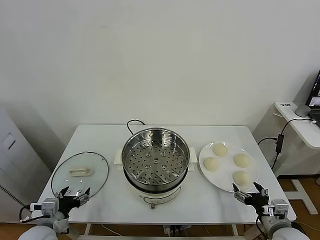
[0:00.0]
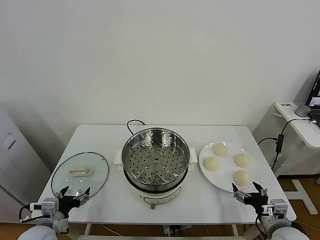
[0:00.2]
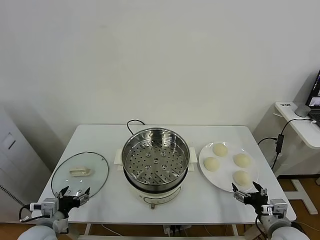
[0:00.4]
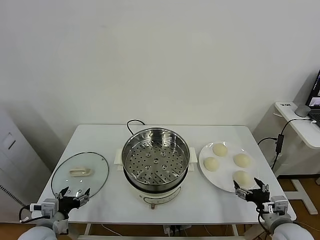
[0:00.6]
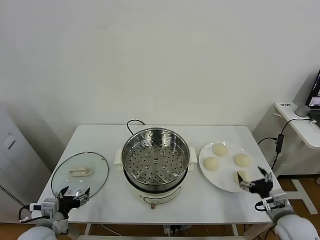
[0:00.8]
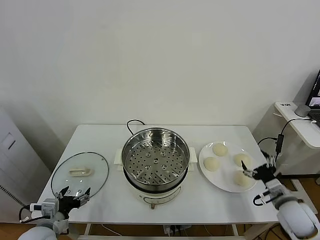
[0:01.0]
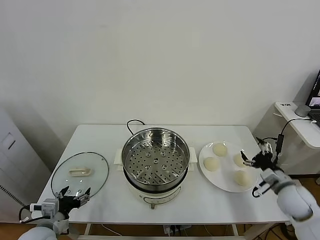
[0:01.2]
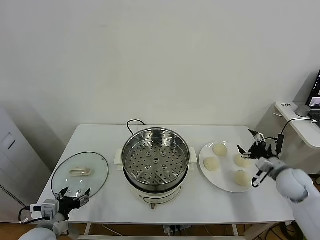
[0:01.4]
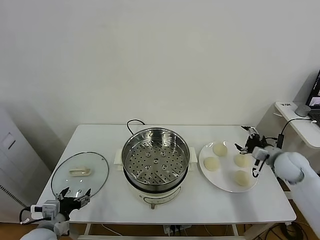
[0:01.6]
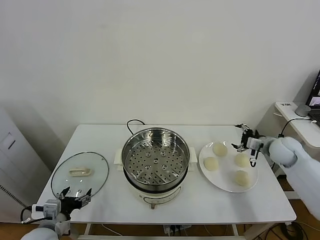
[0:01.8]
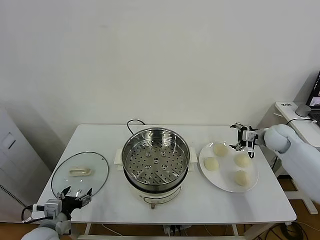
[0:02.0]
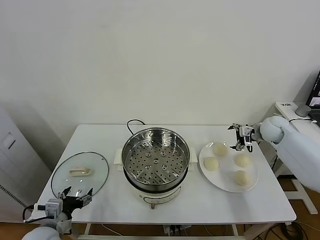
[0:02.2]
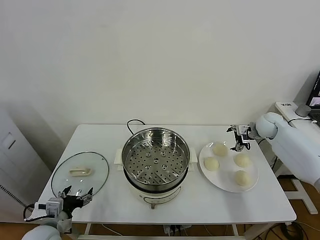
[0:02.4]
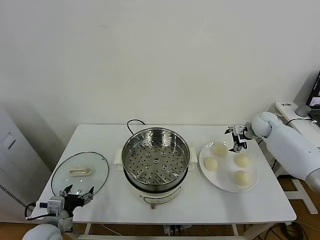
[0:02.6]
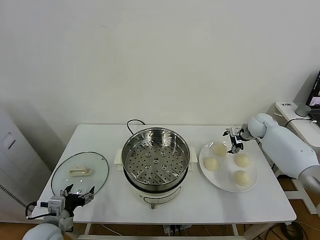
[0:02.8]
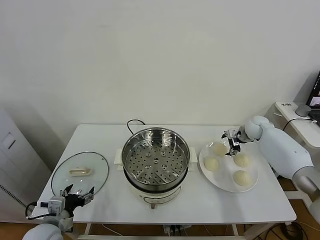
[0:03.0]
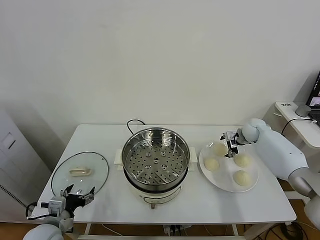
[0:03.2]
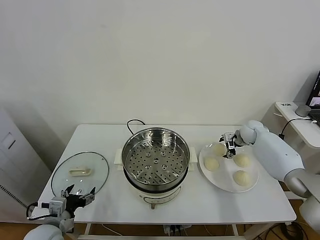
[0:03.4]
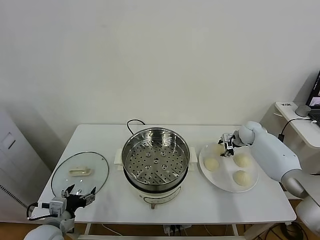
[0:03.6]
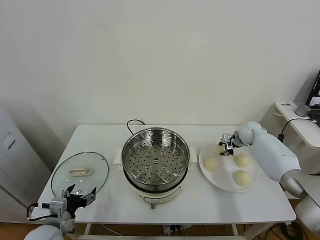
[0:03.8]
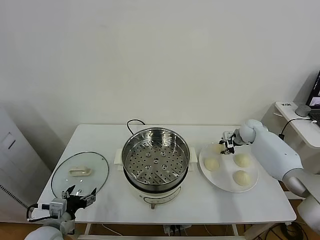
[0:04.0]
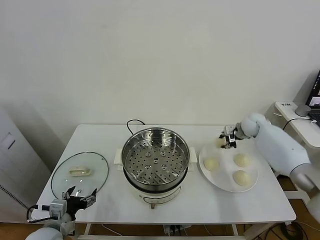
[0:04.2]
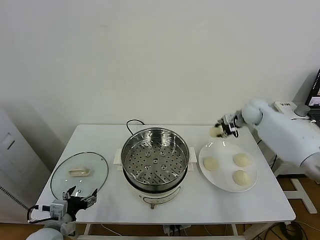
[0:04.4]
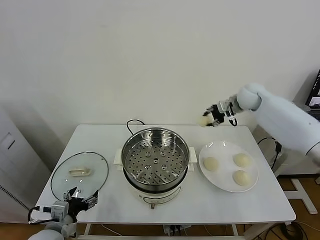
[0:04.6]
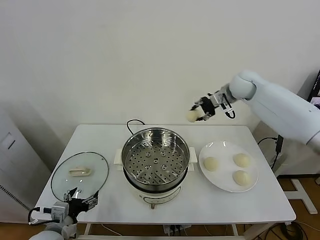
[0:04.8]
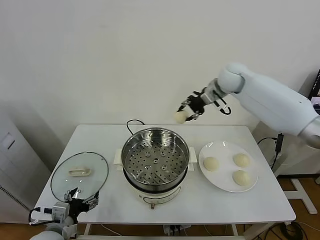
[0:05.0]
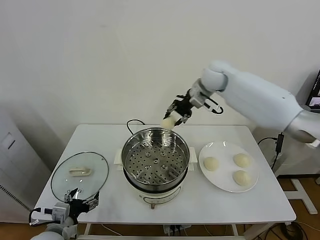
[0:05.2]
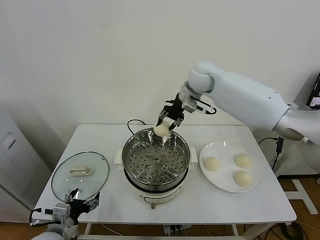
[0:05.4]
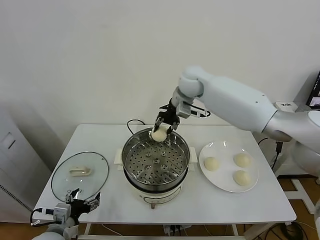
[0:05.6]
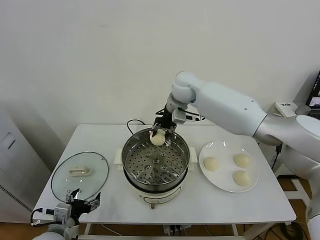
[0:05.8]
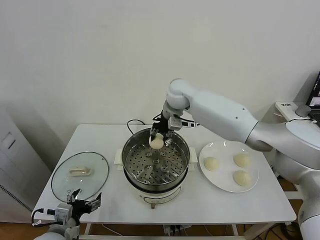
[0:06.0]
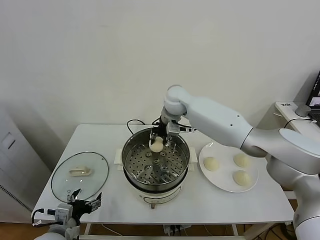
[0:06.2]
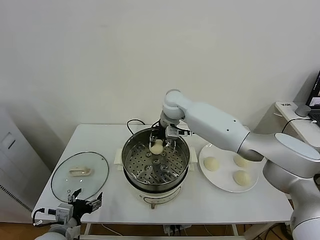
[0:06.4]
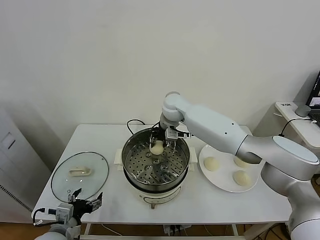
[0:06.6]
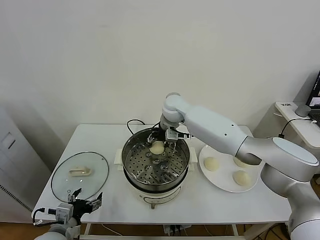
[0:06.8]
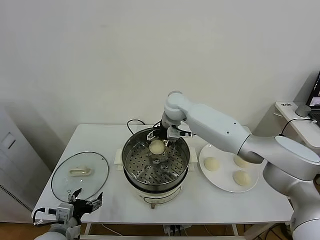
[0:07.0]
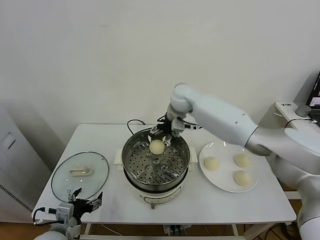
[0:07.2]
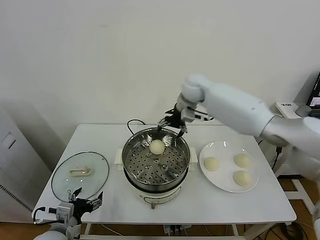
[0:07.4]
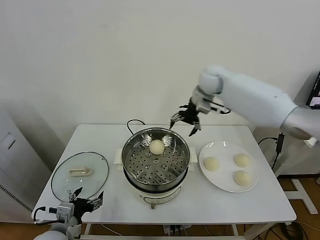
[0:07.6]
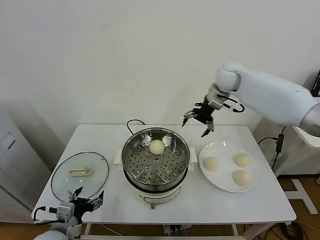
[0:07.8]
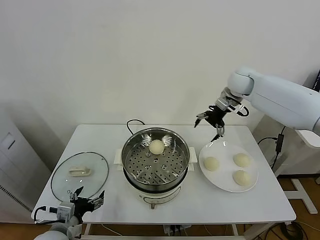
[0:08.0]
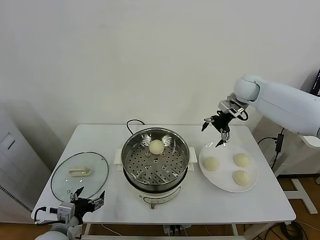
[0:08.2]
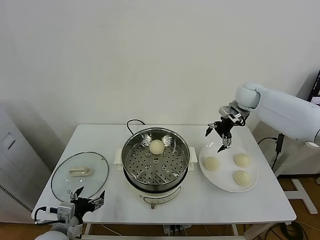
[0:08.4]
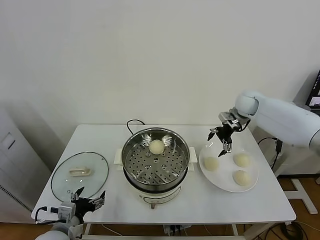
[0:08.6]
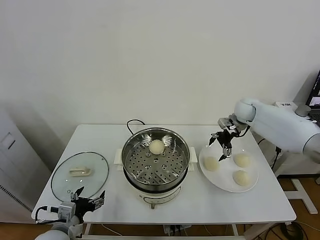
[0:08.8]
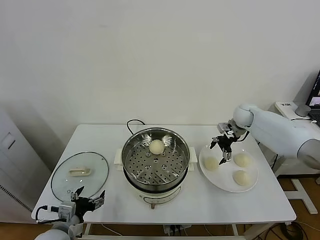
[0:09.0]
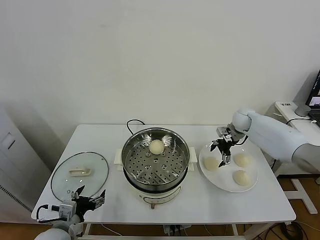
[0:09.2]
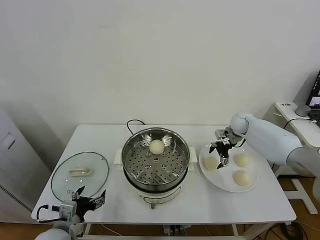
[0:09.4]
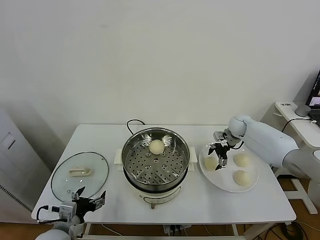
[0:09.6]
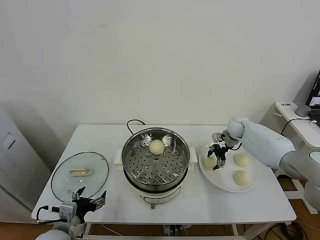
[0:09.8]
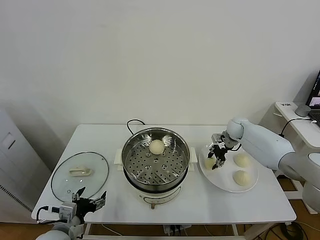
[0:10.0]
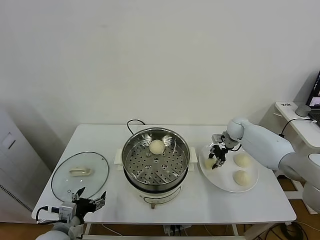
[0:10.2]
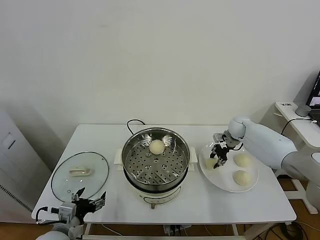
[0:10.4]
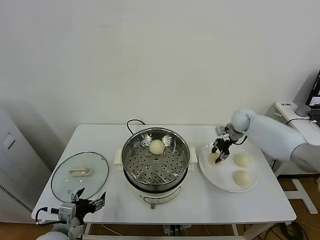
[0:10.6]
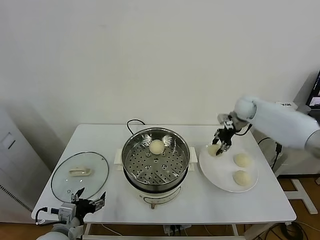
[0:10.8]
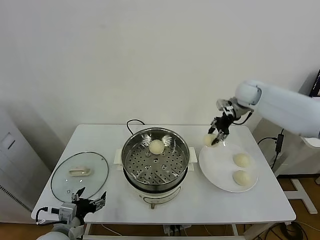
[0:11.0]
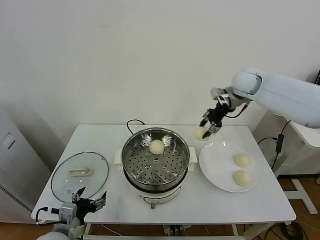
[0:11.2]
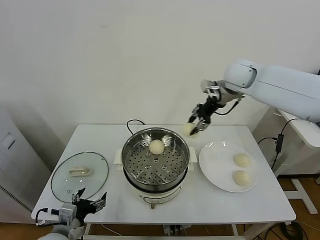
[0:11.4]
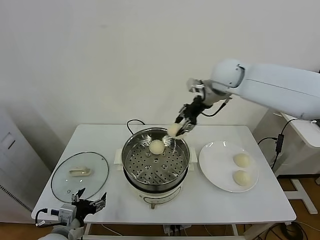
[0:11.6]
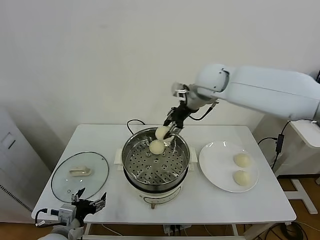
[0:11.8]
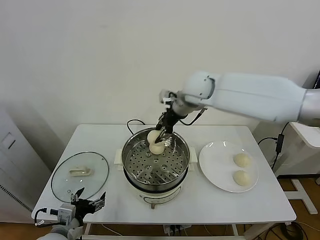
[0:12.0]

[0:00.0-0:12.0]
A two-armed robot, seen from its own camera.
Task of the whole recording: take steamed baozi put them in steamer.
Step, 0.0 to 3.6 s: Grasp the baozi in the plate with right gripper.
Step, 3.8 to 7.0 s: Place the baozi on the steamer with right gripper.
Step, 7.4 to 10.0 s: Grasp the baozi in the plate with right gripper.
1.6 to 3.0 s: The right gripper goes about 15 cm forward.
3.0 to 4.4 s: The right gripper is displaced upward and to the left by roughly 15 cm, and closes up.
4.4 to 6.0 s: The right gripper goes roughly 30 cm to the left.
6.0 to 7.6 s: The right gripper is displaced to the right and upward by some 15 cm, and opens its fingers.
7.6 to 9.0 s: The right gripper travels downward and to the right by some 25 cm.
9.0 to 10.4 s: The right gripper closes.
10.4 to 12.0 s: The right gripper is displaced to the left and upward by about 35 cm.

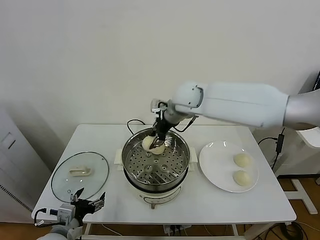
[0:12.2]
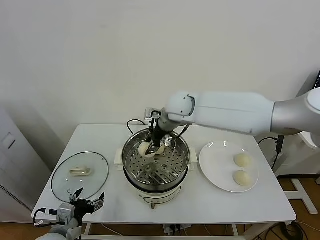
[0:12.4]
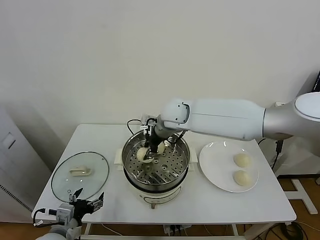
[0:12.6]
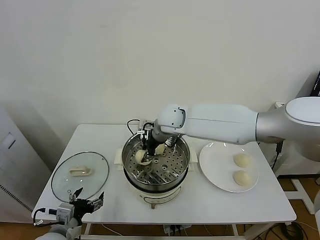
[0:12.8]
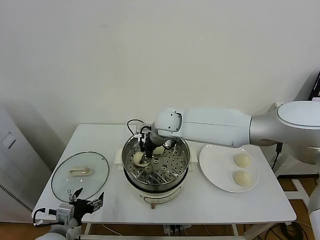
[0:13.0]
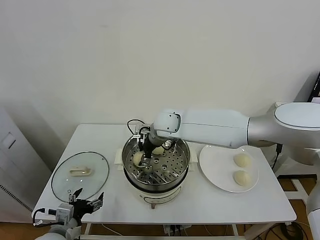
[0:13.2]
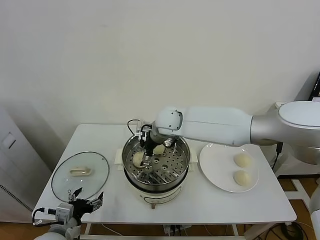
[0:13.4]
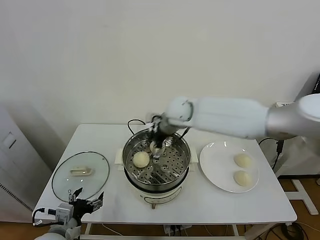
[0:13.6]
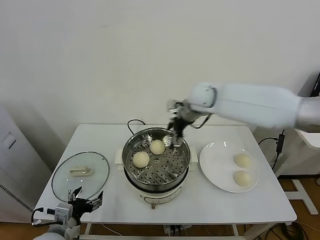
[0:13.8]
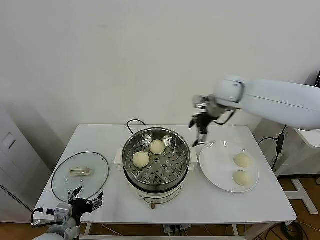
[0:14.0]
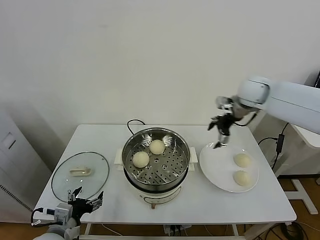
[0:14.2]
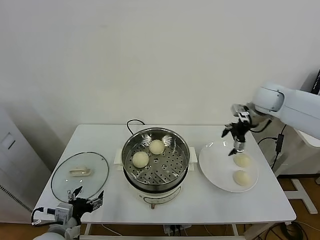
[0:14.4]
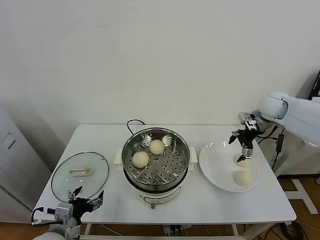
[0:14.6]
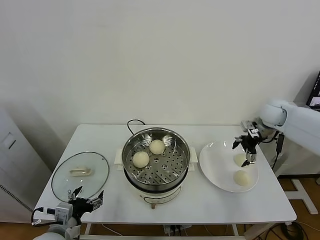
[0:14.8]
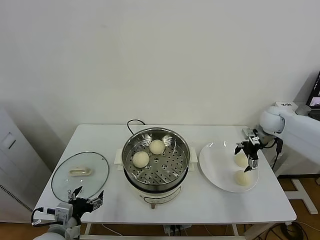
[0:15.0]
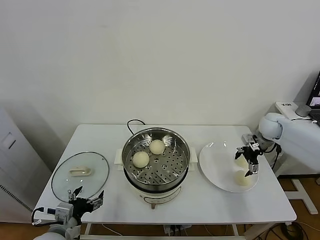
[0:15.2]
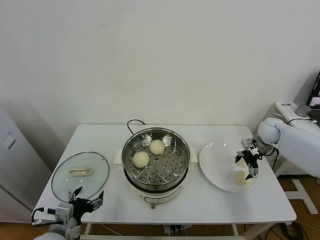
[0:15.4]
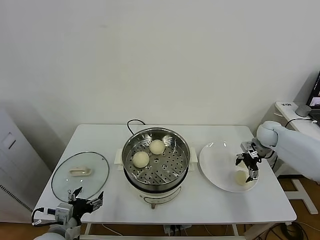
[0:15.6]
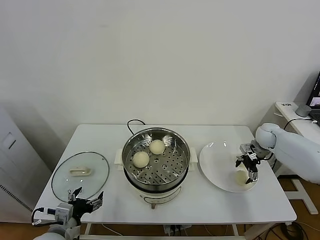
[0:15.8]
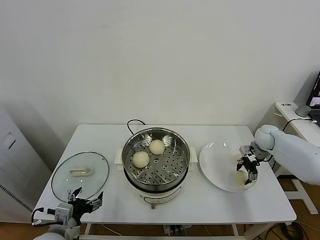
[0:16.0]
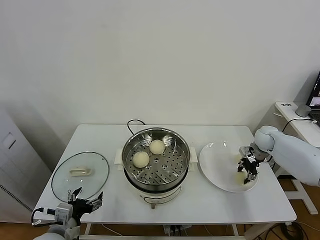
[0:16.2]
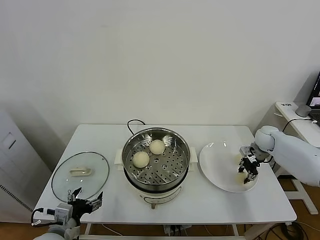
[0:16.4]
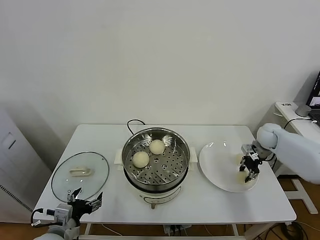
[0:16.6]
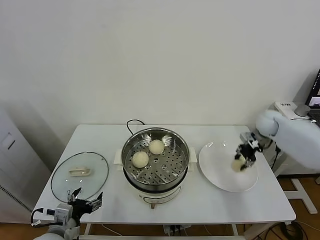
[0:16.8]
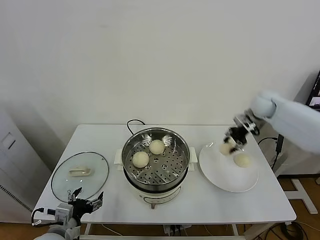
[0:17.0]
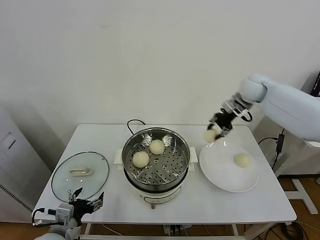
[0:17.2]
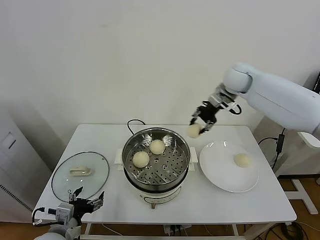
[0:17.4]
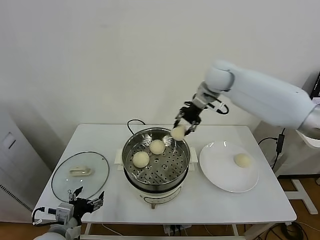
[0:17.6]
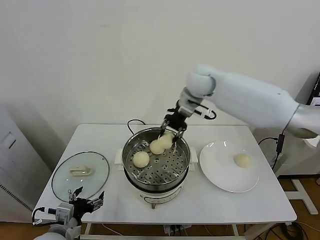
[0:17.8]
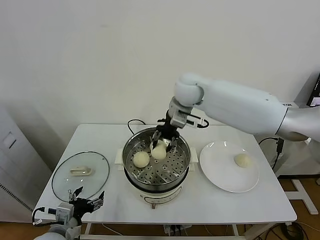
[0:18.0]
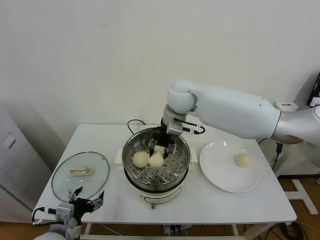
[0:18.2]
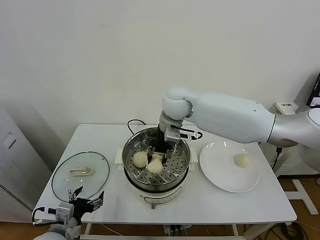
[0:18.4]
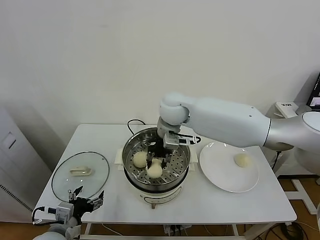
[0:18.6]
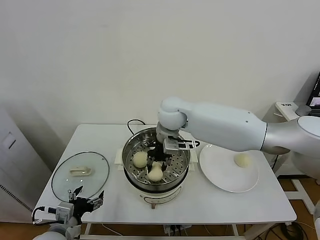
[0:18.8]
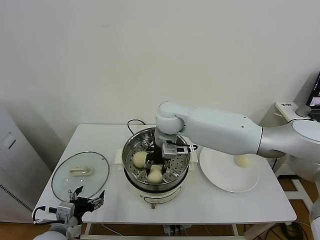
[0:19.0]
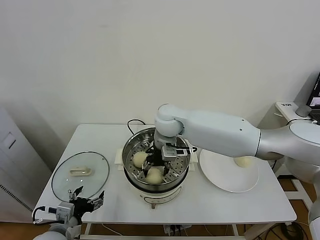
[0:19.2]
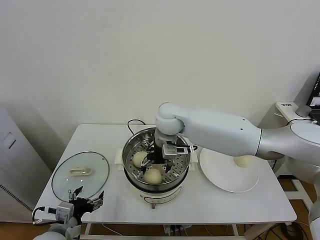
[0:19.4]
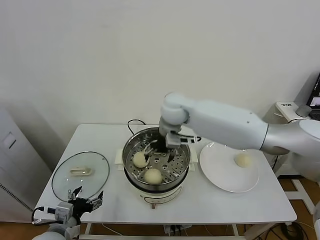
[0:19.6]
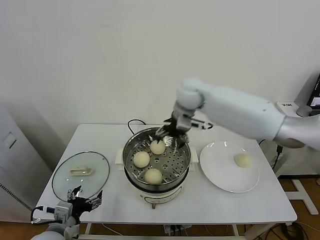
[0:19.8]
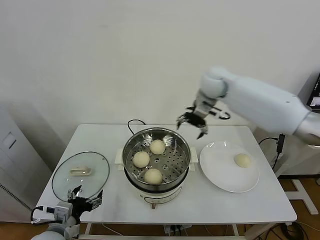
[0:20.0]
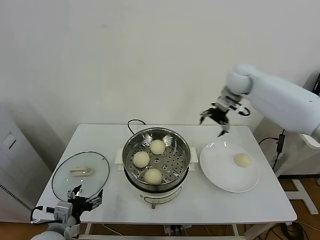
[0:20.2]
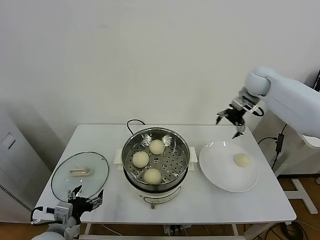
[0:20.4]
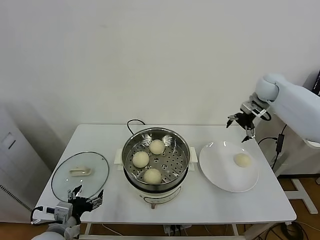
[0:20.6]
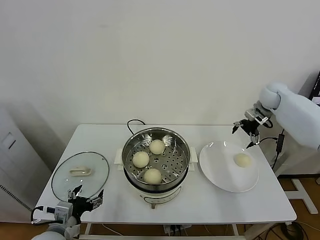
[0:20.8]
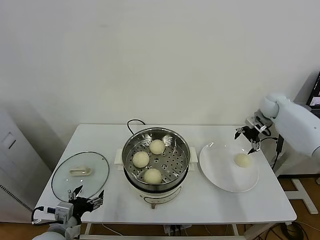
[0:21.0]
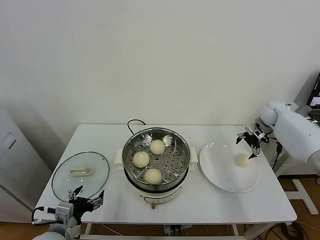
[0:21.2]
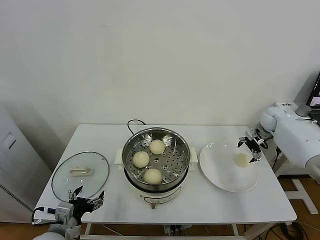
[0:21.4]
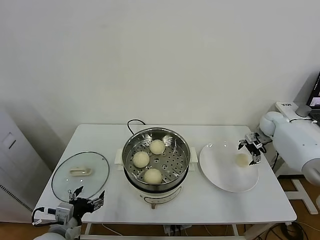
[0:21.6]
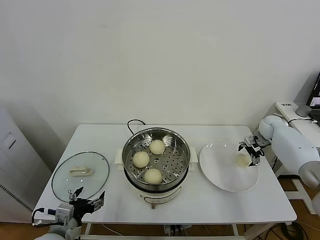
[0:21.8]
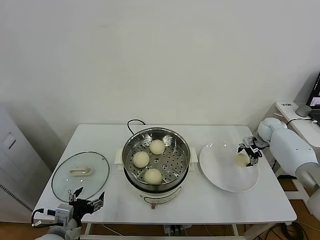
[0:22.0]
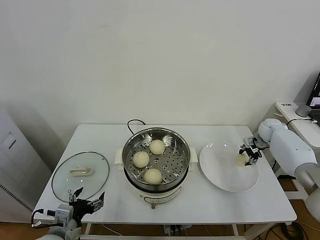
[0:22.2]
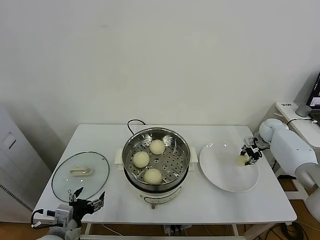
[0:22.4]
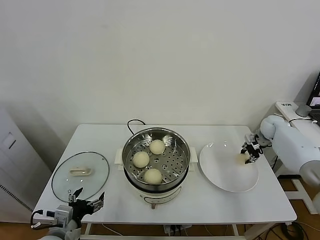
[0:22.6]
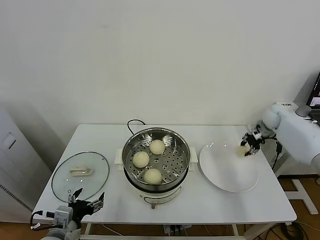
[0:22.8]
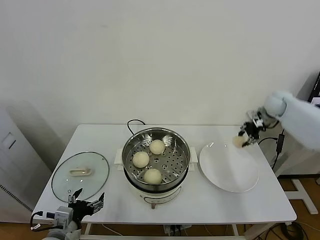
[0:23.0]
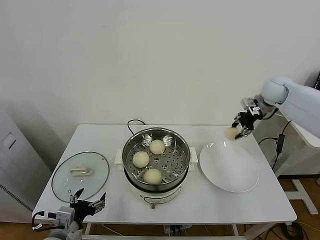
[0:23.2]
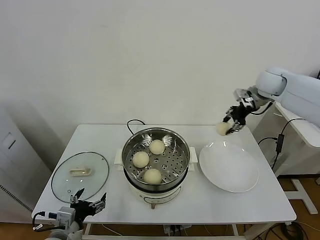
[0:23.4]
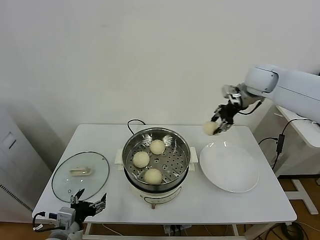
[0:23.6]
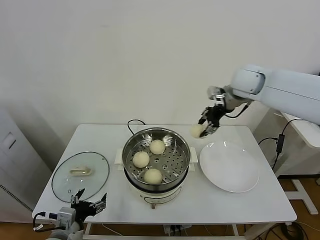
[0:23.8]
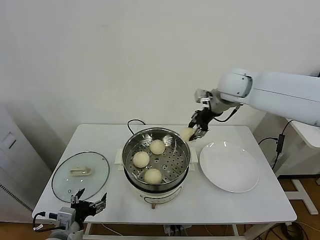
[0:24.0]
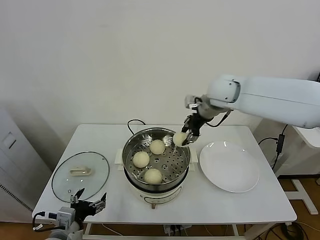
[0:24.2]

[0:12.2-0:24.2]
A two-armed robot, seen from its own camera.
Task of the whole recording: take steamed baozi put them in steamer.
Step, 13.6 to 16.2 s: Grasp the baozi in the plate with right gripper.
Step, 16.4 to 19.4 s: Place the baozi on the steamer with right gripper.
Step, 19.8 to 22.2 s: Grasp the baozi in the plate with right gripper.
12.2 to 13.8 s: The right gripper shifts approximately 10 cm to the right, and opens.
13.8 to 15.2 s: The right gripper shifts approximately 30 cm to the right and downward.
15.2 to 16.6 s: The right gripper closes its fingers.
16.6 to 18.2 s: The right gripper is displaced to the left and upward by approximately 40 cm.
18.2 to 19.8 s: The right gripper moves approximately 5 cm, and opens its fingers.
19.8 to 21.2 s: The right gripper shifts roughly 35 cm to the right and downward.
21.2 to 22.6 s: The right gripper goes about 5 cm downward, and closes its fingers.
22.6 to 24.2 s: The right gripper shifts about 35 cm to the left and upward.
